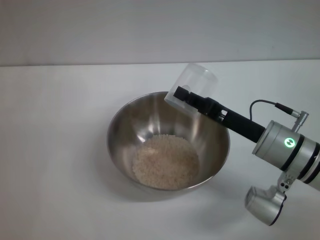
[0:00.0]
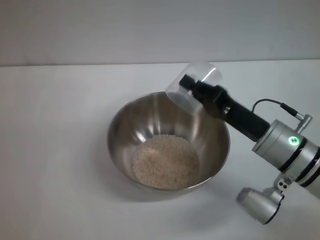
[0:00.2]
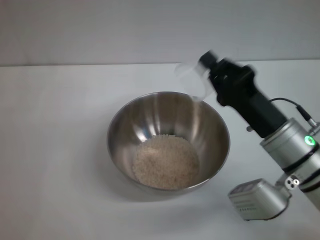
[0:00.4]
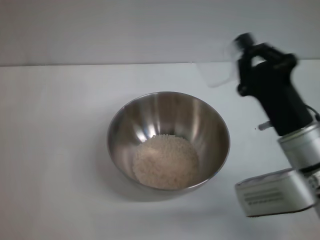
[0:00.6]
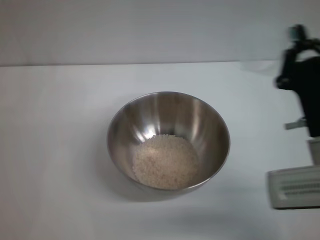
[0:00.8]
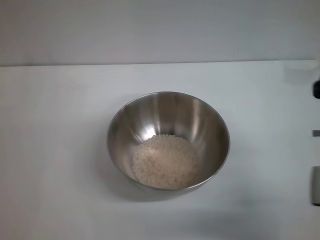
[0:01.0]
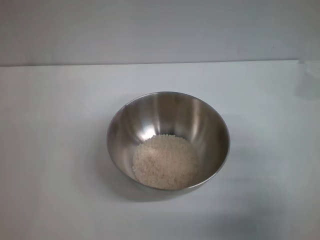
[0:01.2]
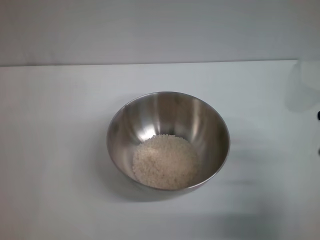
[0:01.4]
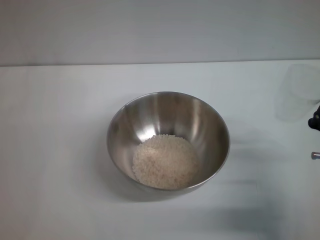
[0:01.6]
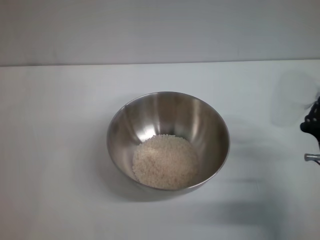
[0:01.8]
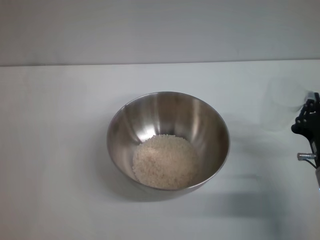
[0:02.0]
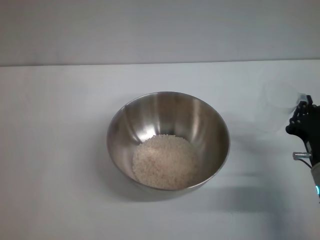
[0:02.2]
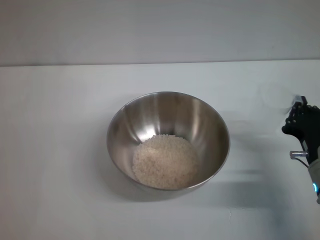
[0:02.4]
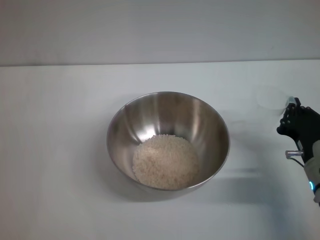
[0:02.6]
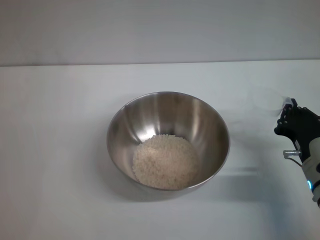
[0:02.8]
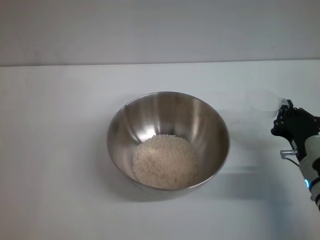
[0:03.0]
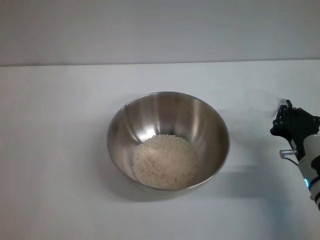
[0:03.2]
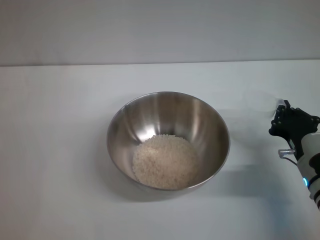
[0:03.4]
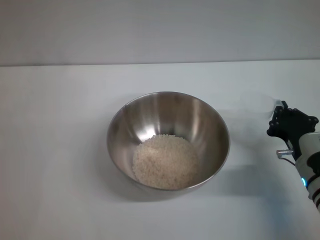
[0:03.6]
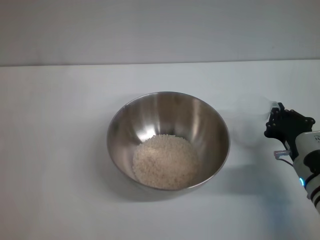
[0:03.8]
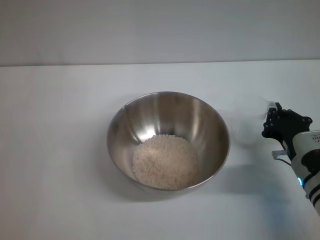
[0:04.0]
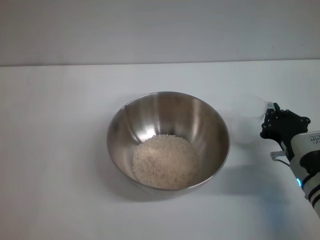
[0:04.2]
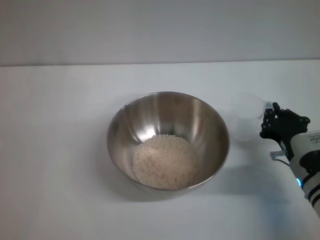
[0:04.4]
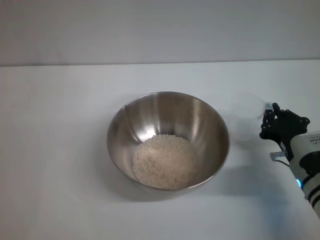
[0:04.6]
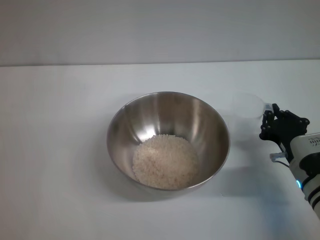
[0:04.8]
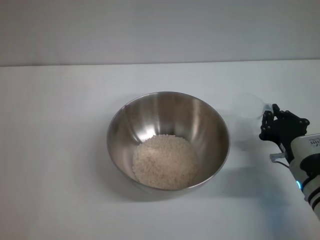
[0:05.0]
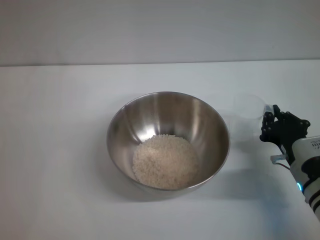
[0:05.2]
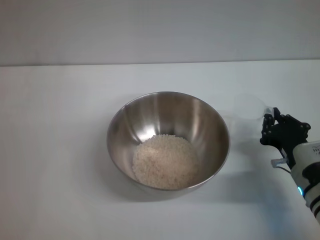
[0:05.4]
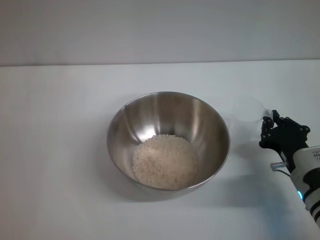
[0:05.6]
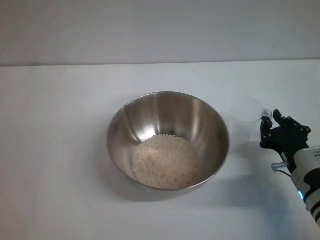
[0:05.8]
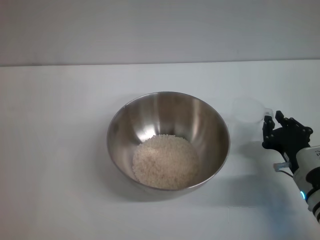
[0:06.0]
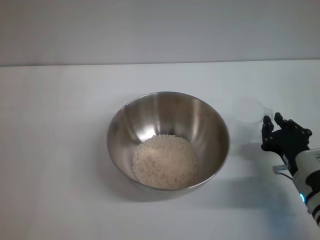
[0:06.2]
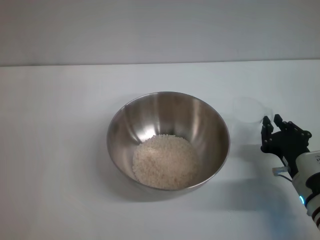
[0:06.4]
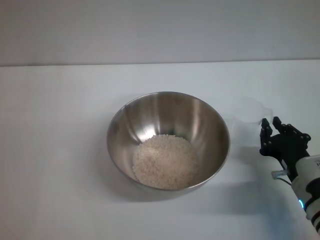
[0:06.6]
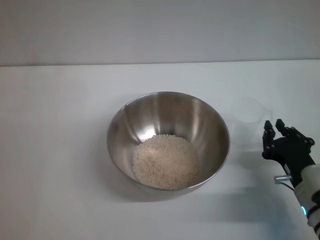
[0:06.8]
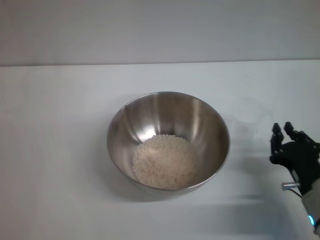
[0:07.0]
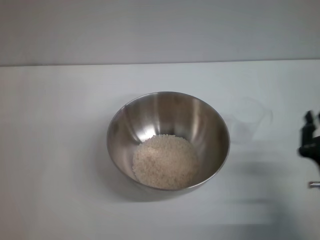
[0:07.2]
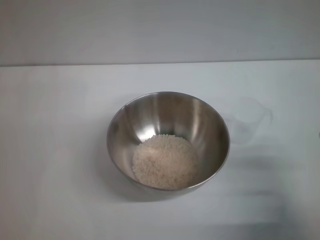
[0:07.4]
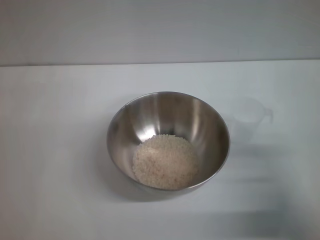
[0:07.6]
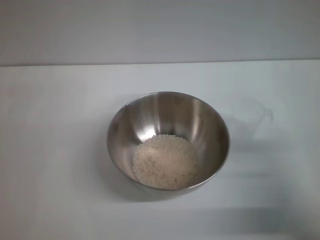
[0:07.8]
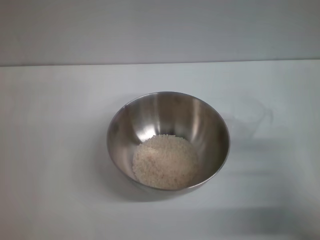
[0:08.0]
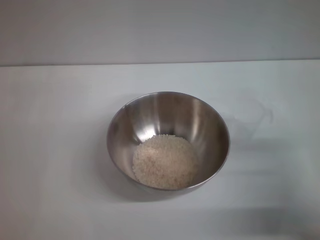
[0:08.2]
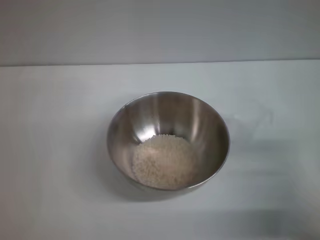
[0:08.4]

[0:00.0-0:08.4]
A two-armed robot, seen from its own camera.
Task of the whole recording: Place the bowl in the middle of the table with one hand and pour the rice from the grain cup into it with the other hand.
Step, 0:01.0 to 0:07.0: Place the cup on the table with the right gripper.
0:00.0 to 0:01.4: The right gripper goes about 10 cm backward.
0:01.4 to 0:02.8: The right gripper shifts about 5 cm forward.
0:02.8 to 0:07.0: The grippers move only a little.
0:07.0 to 0:08.4: The right gripper heads upward and to the right, covering about 10 cm, and opens.
